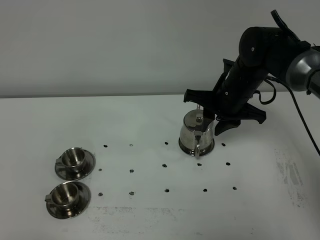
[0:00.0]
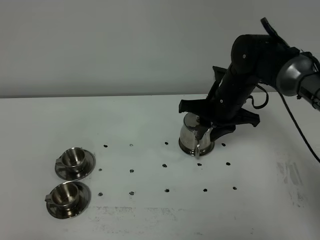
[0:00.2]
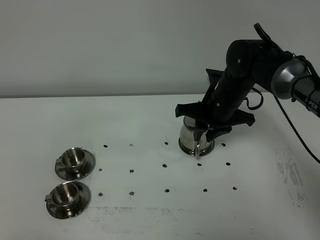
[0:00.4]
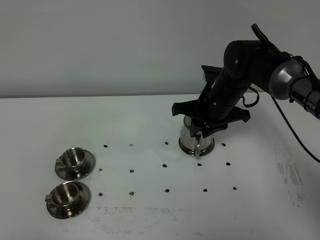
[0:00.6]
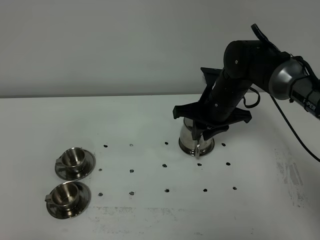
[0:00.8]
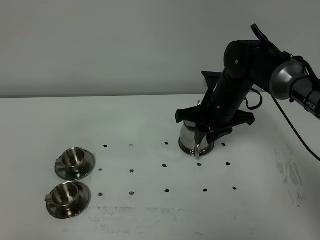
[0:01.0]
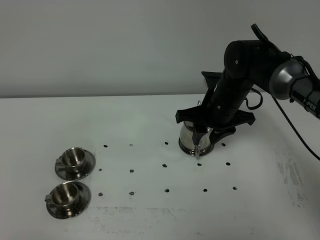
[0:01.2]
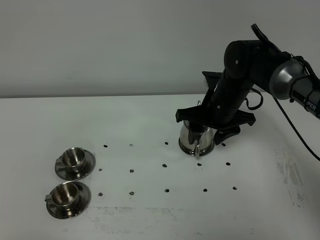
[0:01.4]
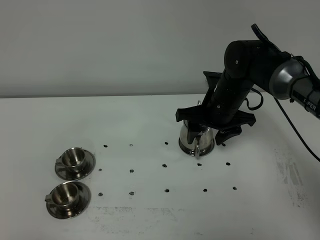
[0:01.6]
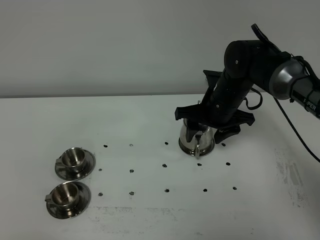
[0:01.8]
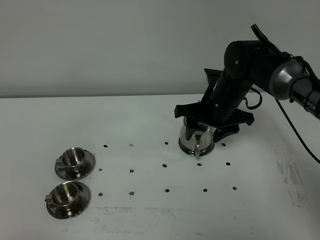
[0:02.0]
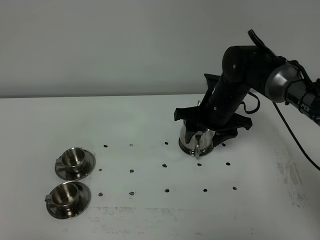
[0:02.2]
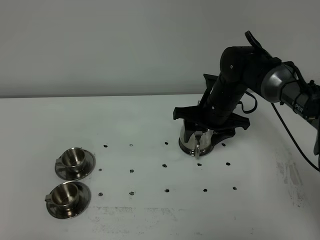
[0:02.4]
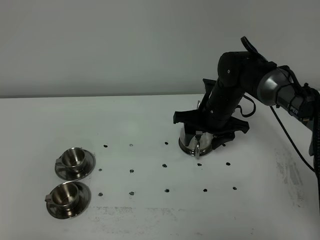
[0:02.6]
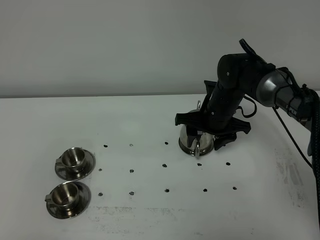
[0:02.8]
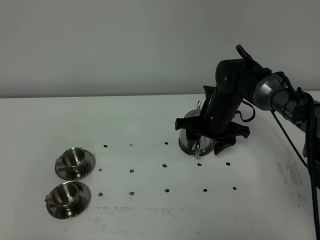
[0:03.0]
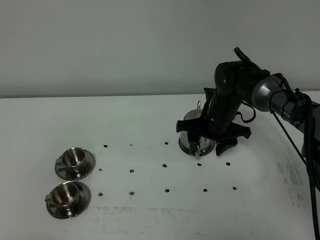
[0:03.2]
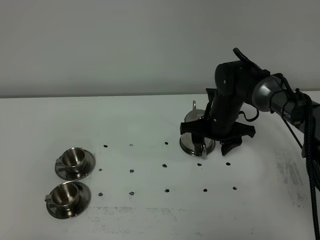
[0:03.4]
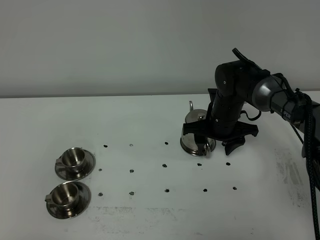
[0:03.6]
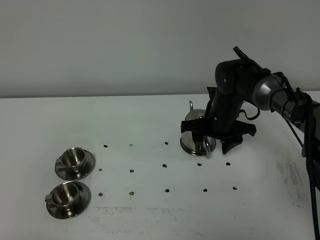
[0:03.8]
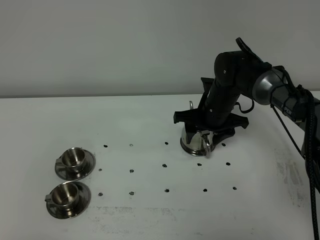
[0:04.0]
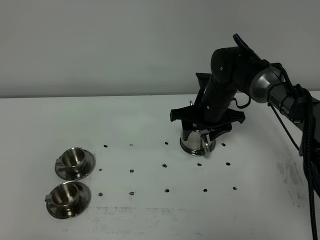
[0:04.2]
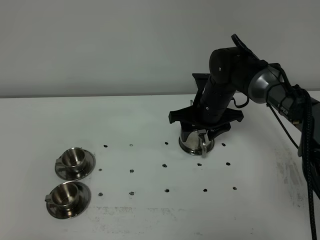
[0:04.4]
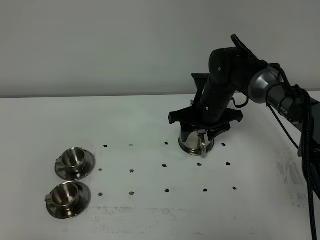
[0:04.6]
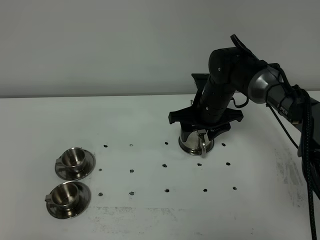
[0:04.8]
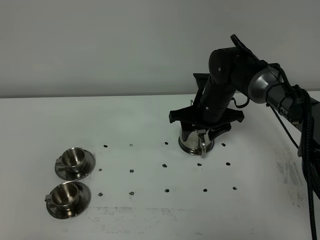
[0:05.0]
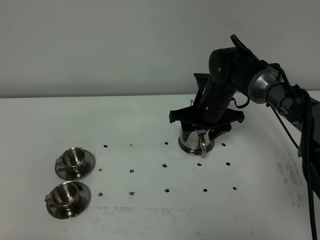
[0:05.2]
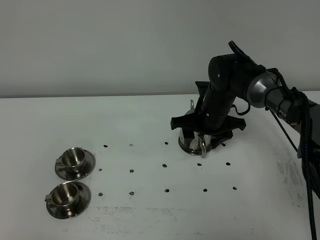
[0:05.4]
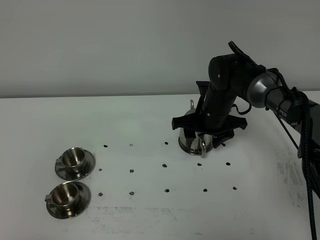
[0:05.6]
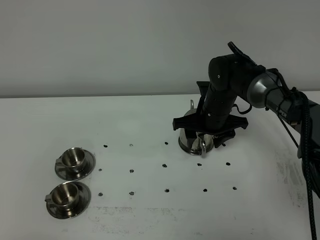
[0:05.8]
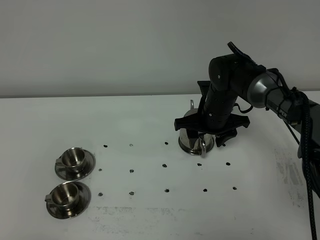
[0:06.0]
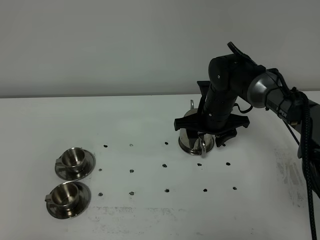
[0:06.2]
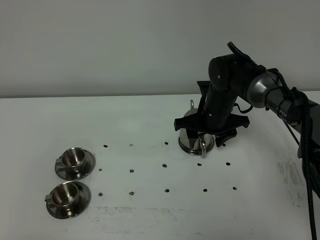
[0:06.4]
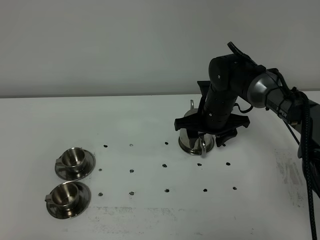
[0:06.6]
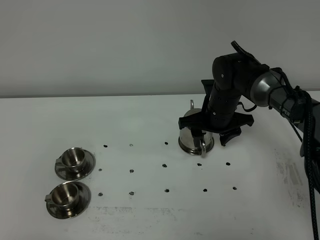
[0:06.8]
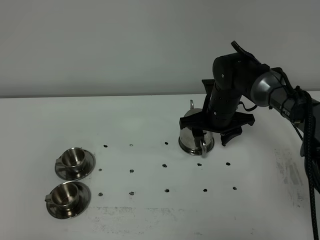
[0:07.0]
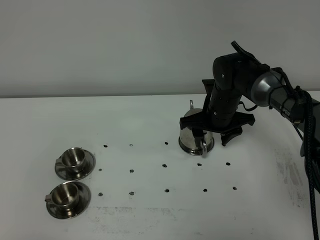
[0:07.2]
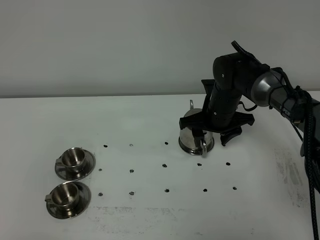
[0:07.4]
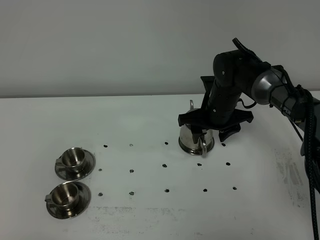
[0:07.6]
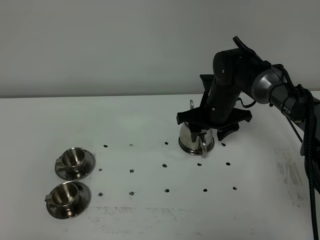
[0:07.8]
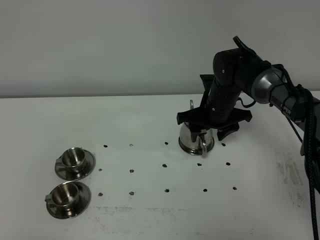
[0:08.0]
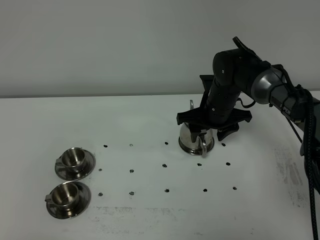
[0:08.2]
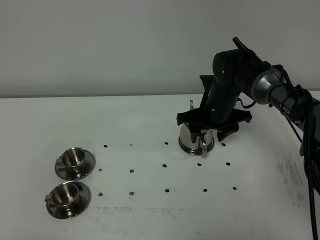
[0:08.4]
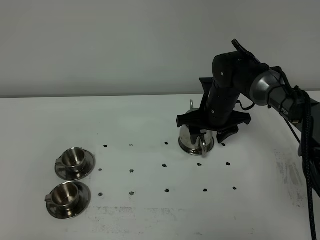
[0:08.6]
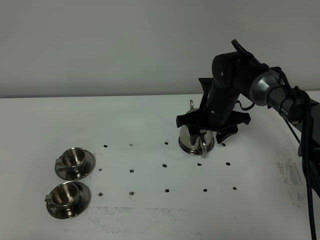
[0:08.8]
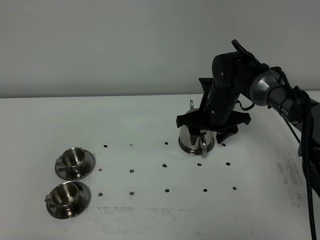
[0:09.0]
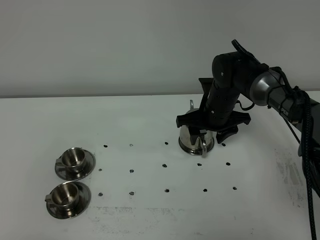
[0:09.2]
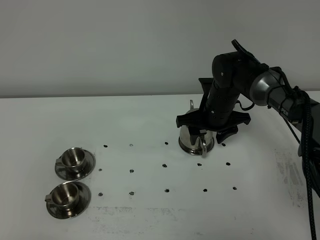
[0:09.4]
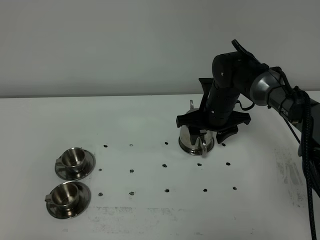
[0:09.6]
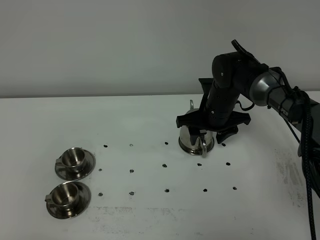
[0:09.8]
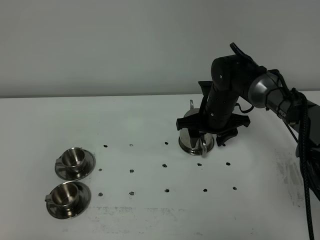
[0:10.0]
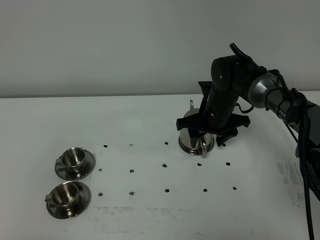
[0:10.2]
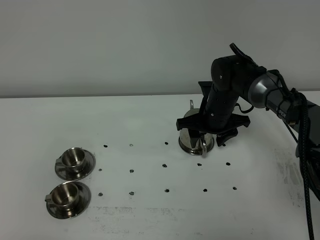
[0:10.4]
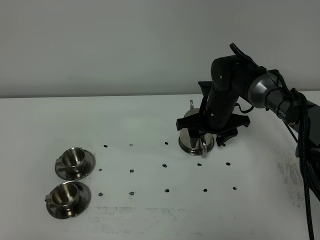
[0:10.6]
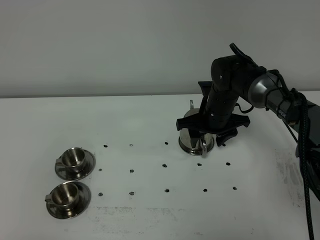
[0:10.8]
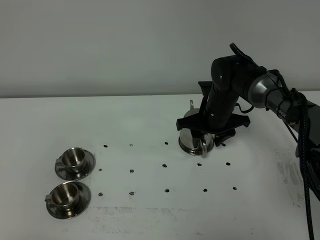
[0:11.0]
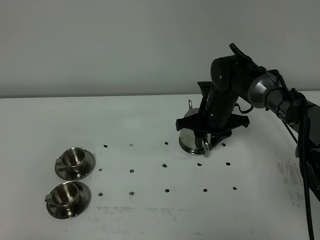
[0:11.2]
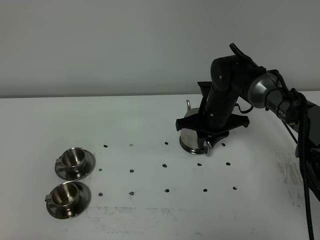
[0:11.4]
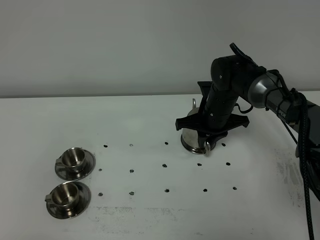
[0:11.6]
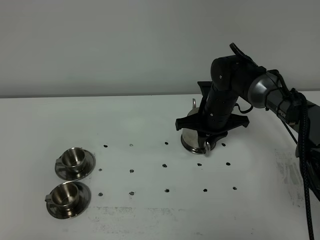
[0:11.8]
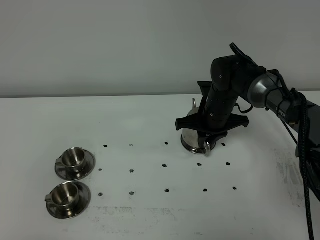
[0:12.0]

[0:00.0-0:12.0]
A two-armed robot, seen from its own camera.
Task of the whole recording: grasp the stainless steel teapot and pour the tea into the two stainless steel teacups one by one, put the stainless steel teapot back in its original place.
0:00.0 to 0:01.6: The right gripper opens.
0:01.6 to 0:03.0: The right gripper shifts some 5 cm downward.
0:03.0 to 0:06.0: The grippers move only a little.
0:06.0 to 0:10.4: Both grippers stay about where they are.
0:10.4 to 0:12.0: The right gripper closes.

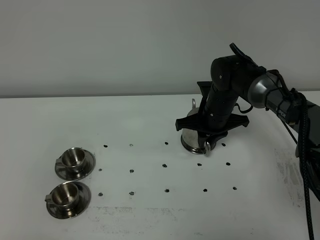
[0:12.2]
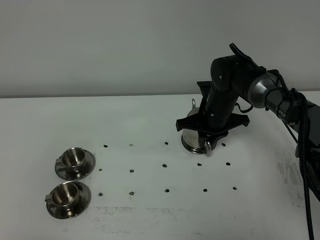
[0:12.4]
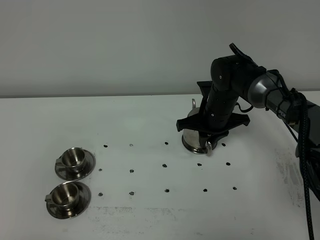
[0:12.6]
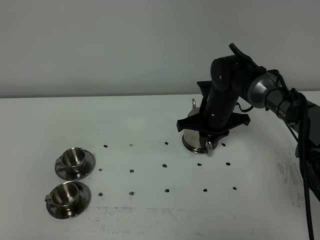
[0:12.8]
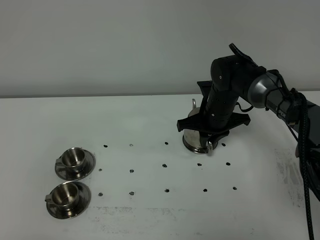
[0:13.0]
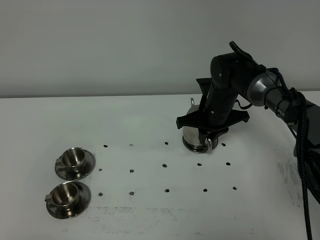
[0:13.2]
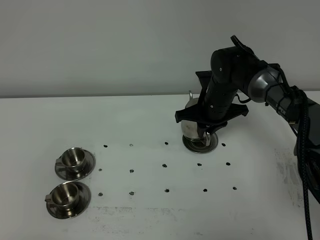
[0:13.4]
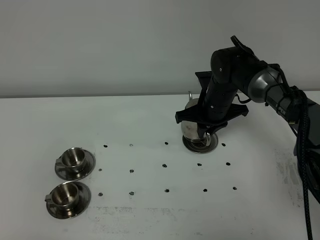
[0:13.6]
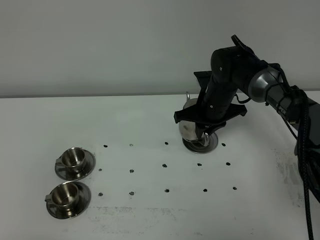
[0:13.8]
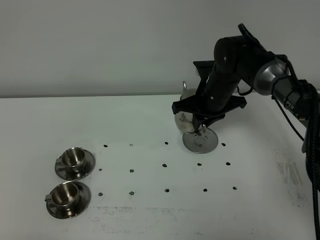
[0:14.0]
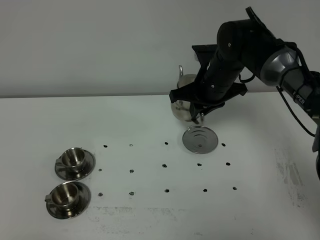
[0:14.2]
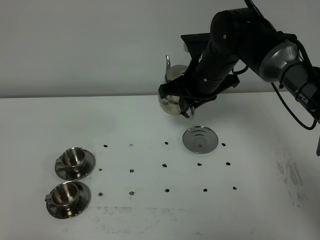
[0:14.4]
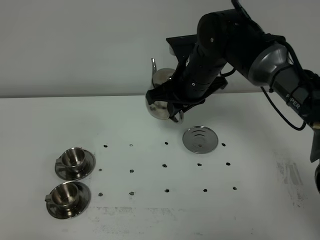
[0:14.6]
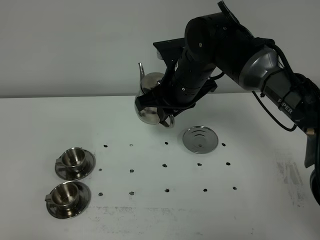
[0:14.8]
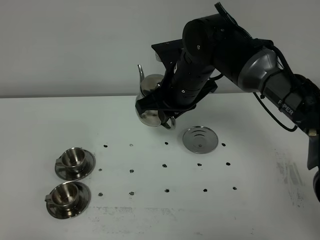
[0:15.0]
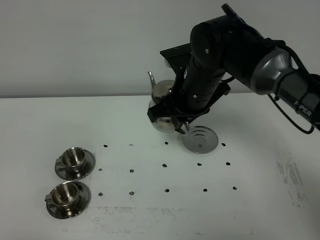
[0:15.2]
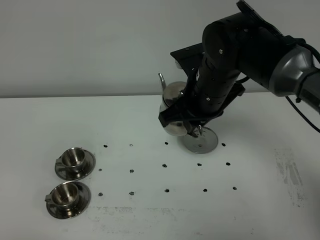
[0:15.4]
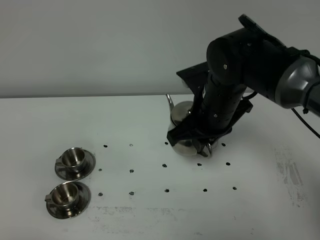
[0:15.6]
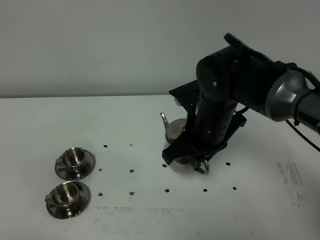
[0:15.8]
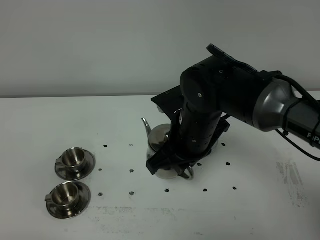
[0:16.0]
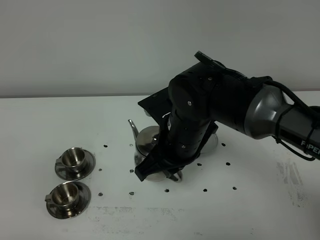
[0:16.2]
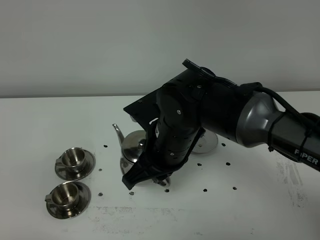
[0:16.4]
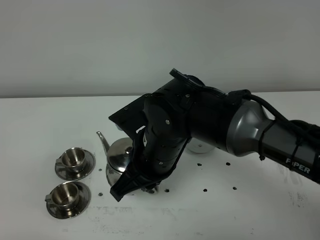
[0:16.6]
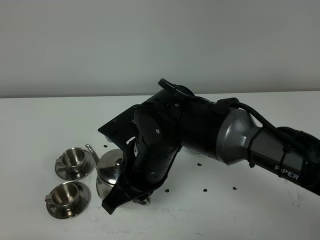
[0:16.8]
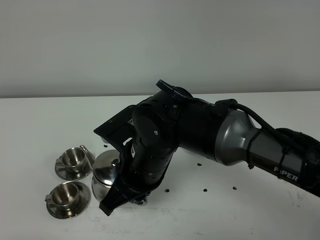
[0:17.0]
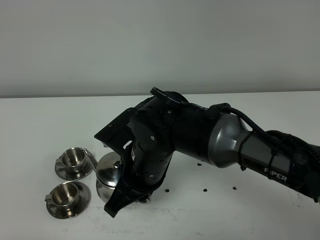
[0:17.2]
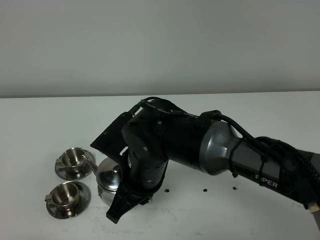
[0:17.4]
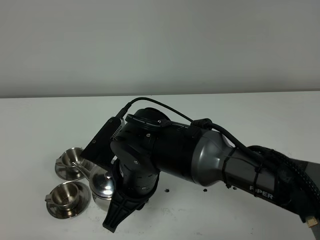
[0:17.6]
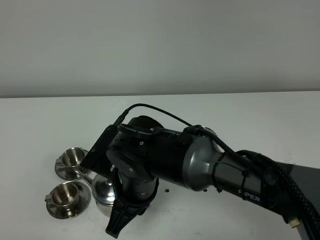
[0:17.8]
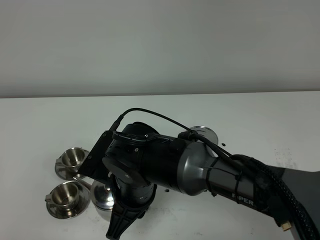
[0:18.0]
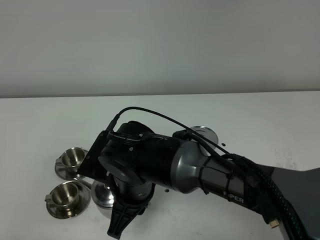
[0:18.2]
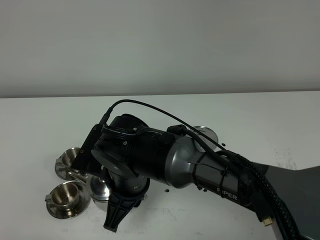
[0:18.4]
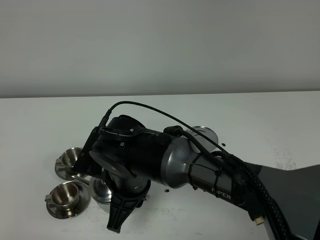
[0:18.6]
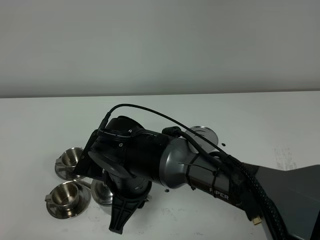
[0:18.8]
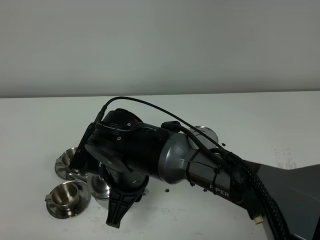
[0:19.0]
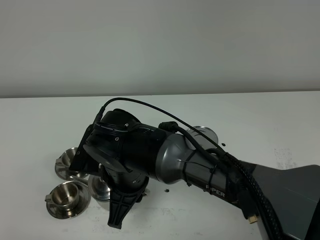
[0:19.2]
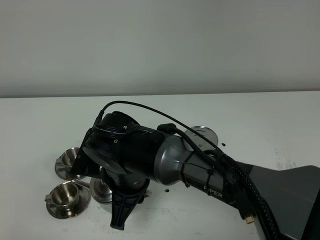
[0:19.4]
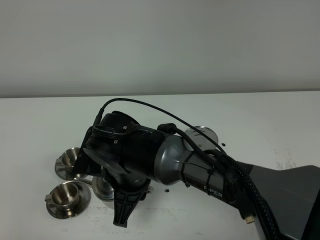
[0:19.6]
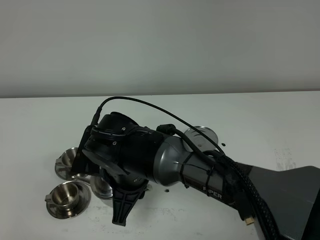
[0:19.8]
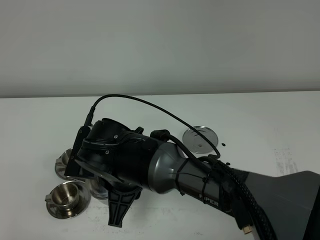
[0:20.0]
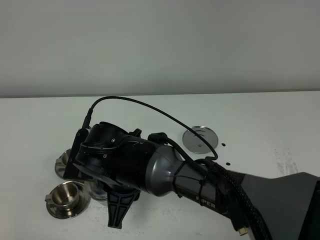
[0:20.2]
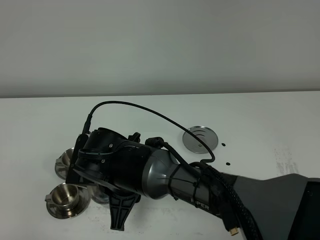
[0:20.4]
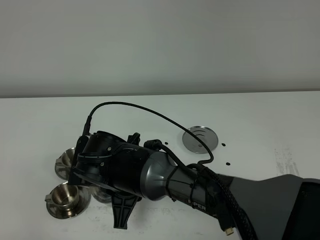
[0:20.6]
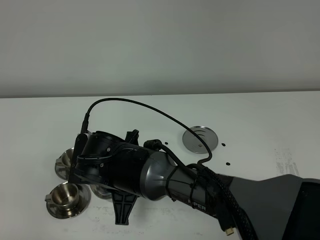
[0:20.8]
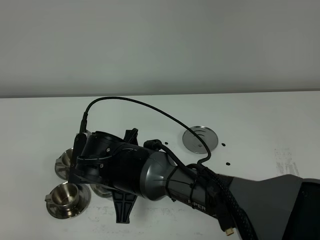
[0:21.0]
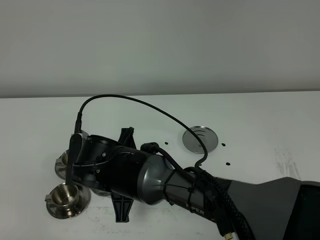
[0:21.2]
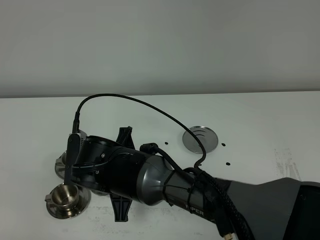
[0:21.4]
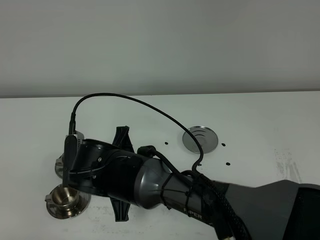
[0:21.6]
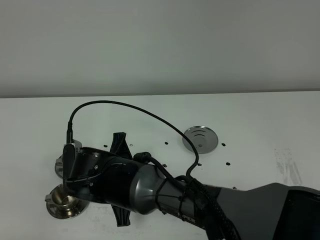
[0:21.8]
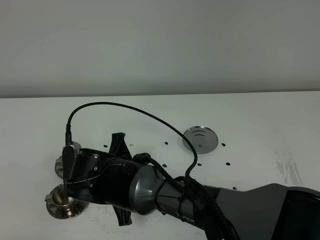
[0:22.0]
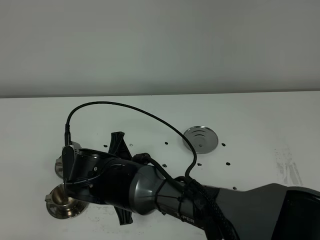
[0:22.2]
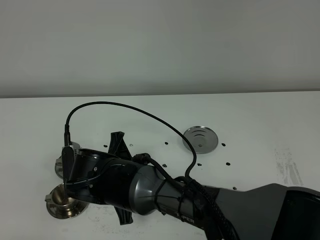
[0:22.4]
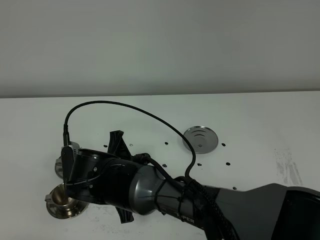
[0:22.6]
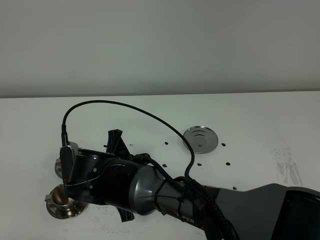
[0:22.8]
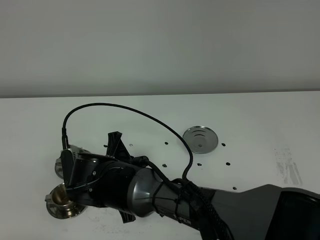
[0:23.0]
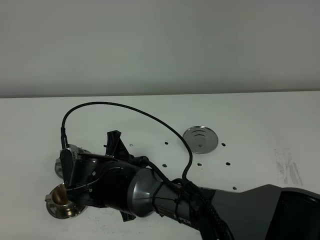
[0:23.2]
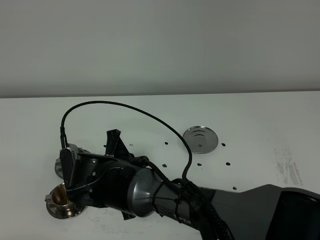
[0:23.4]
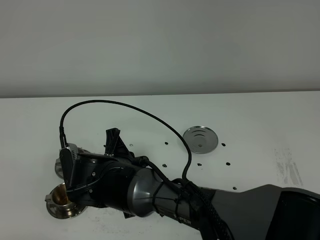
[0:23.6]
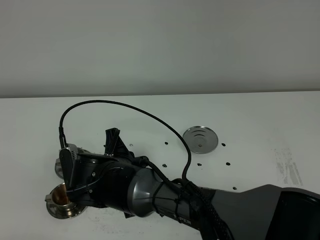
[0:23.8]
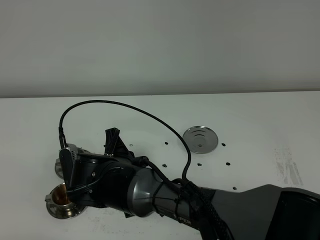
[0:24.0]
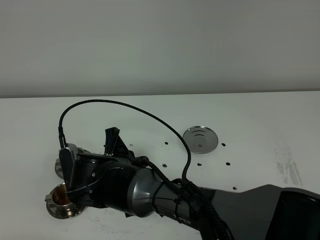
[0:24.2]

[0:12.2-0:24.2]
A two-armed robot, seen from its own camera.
Task of the whole recording: grasp the stainless steel teapot and pour the tea into the two stainless steel teacups one by one, put the stainless steel teapot back in its original place.
0:12.2 to 0:13.8: The grippers make only small movements.
0:13.8 to 0:15.2: The right gripper goes about 15 cm upward and backward.
0:15.2 to 0:16.6: The right gripper travels backward and to the left by some 15 cm.
0:16.6 to 0:18.2: The right gripper shifts some 5 cm downward.
0:18.2 to 0:19.8: The grippers stay close to where they were, moving slightly.
0:19.8 to 0:21.2: There are only small adjustments of the grippers.
0:21.2 to 0:24.2: The grippers move only a little.
